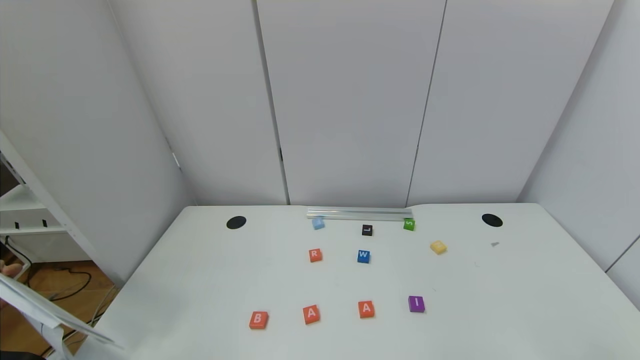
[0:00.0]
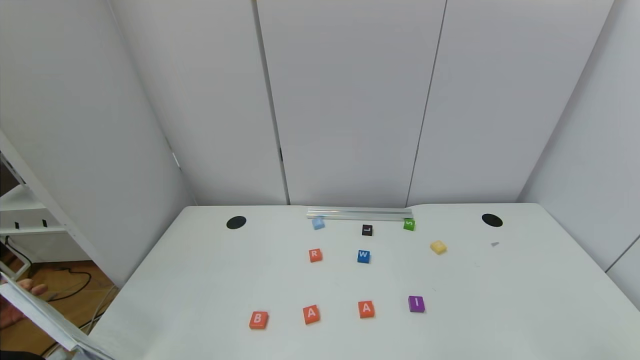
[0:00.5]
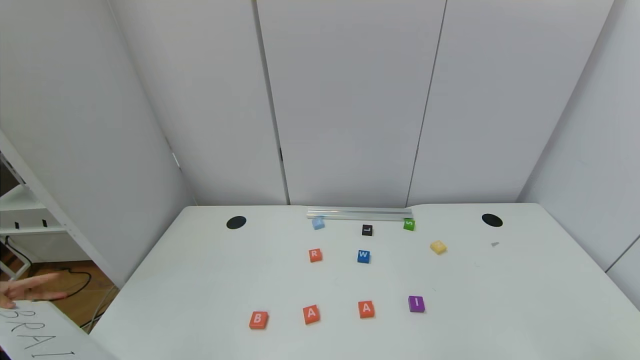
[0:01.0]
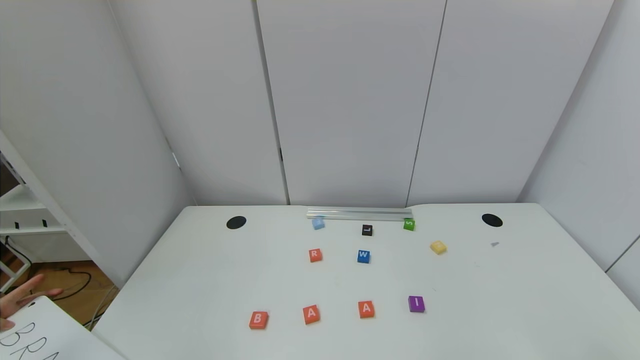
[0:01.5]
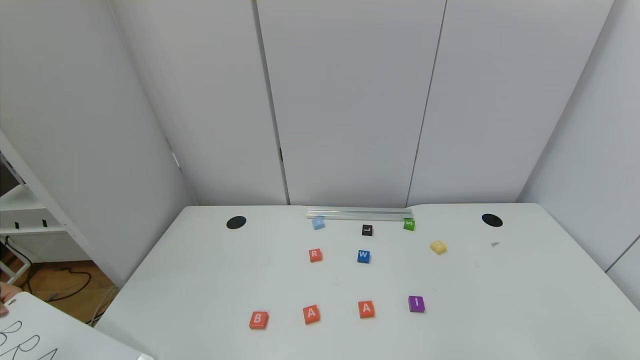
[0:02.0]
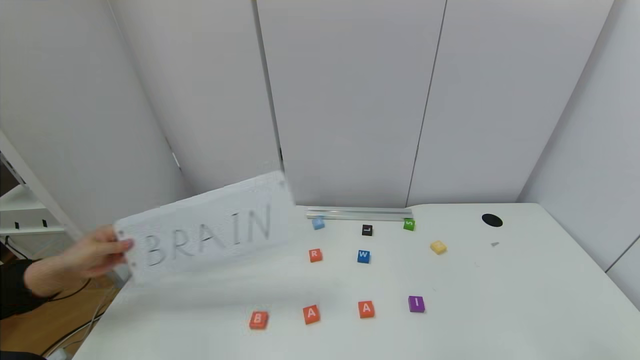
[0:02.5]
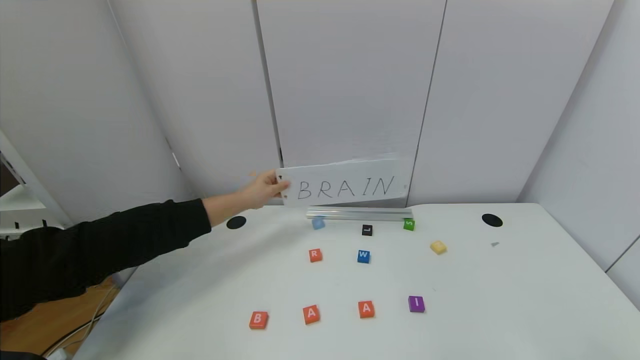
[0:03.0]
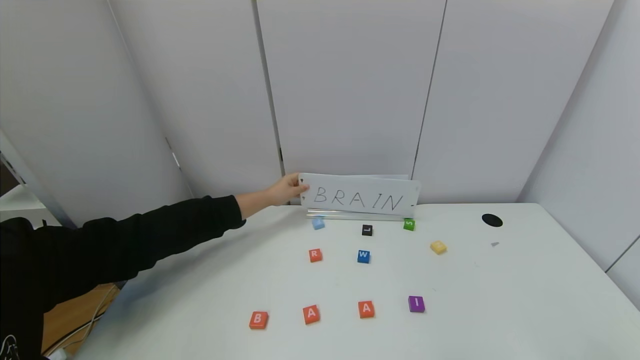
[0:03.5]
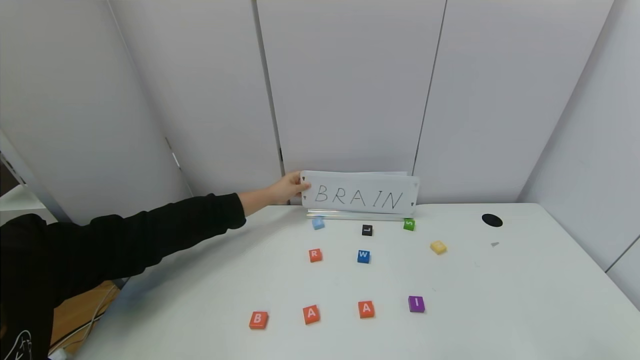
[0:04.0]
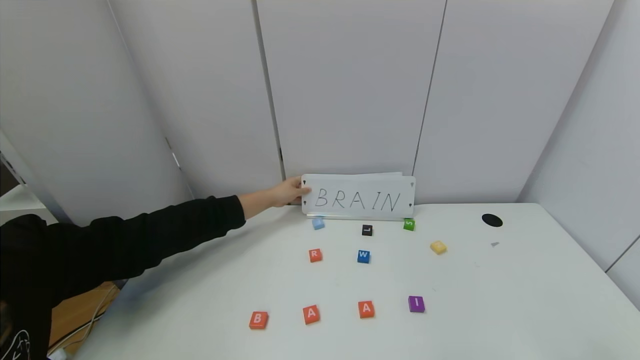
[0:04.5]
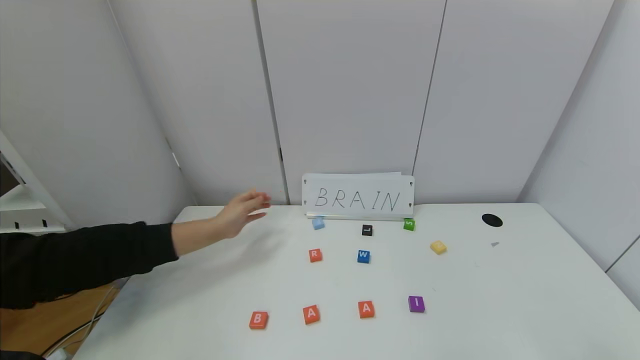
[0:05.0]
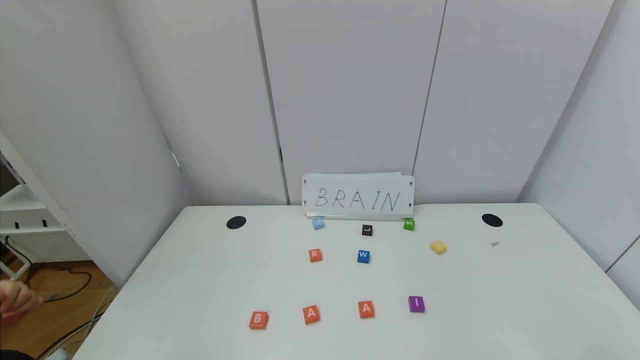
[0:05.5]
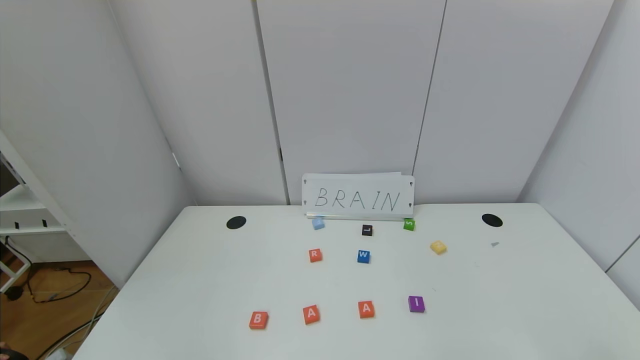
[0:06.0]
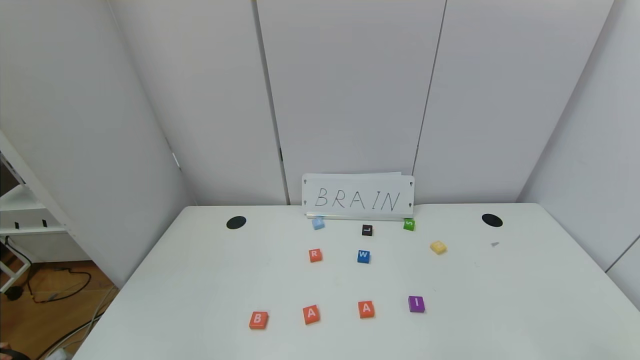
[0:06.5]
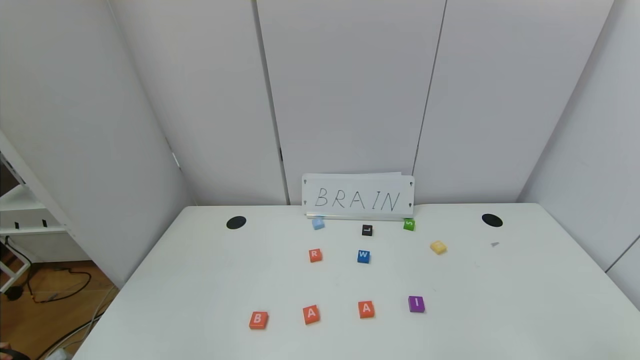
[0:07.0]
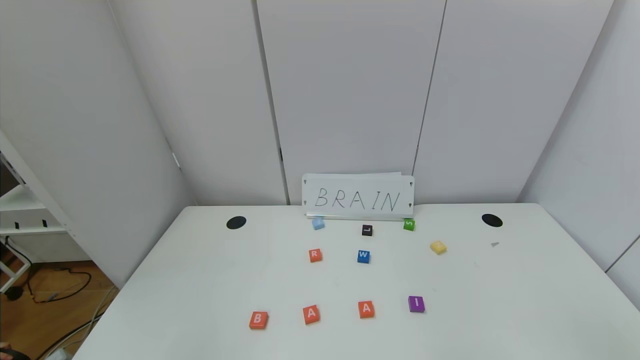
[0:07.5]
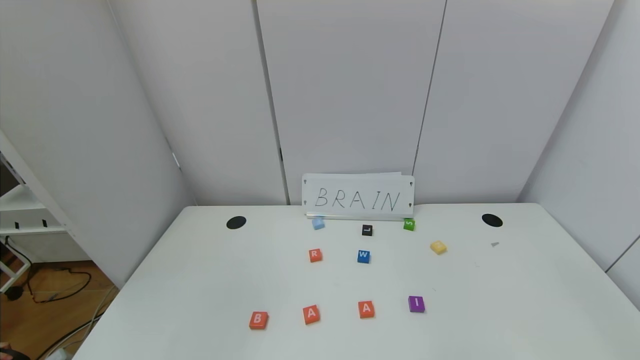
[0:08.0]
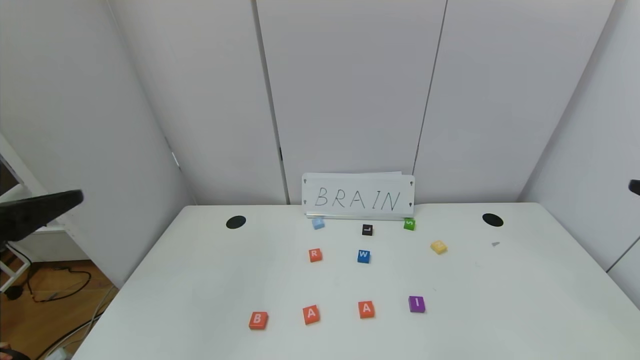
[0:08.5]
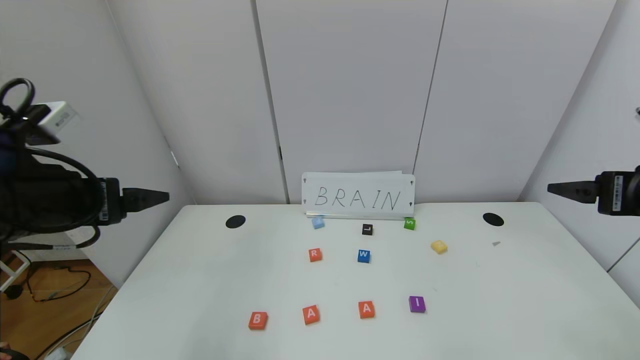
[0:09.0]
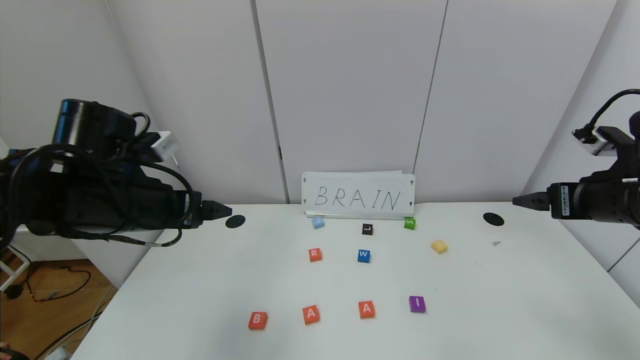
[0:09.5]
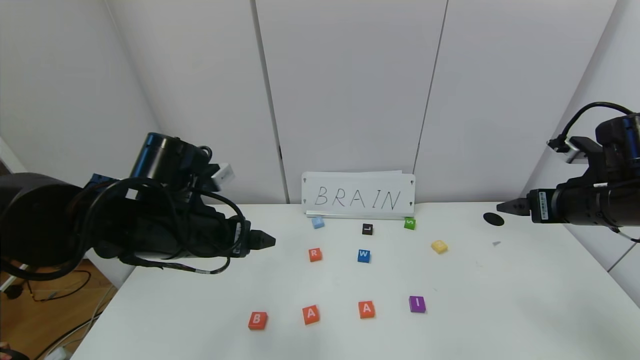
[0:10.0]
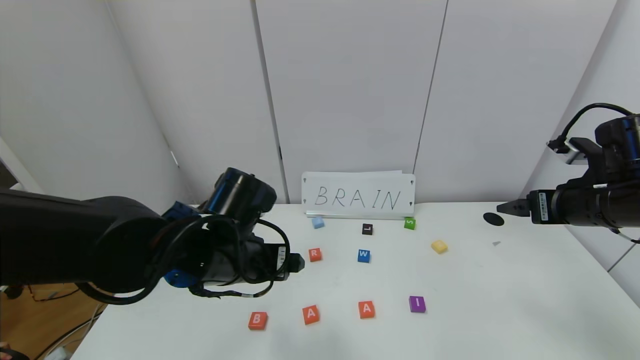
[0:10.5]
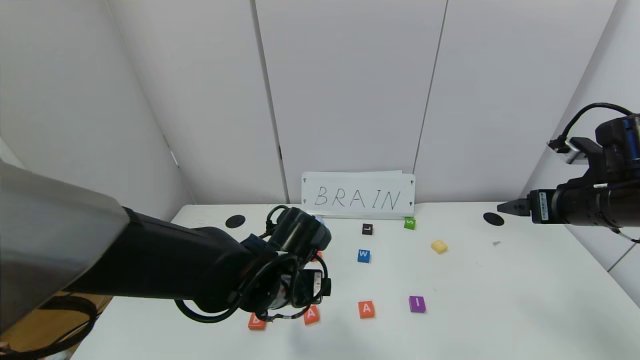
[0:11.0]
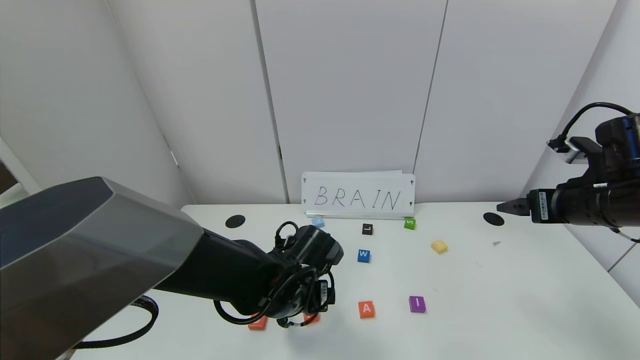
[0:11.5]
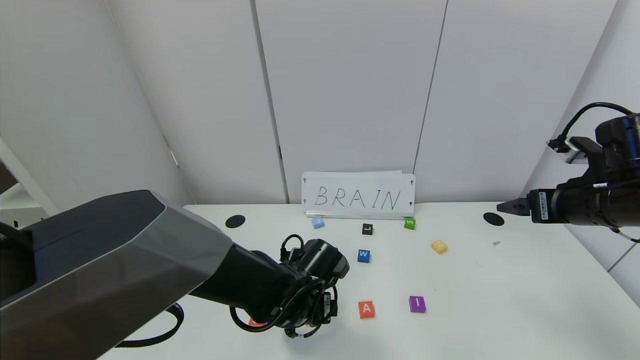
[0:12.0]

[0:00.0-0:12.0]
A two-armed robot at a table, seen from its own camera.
Task of the whole recording: use the gripper to find blocks with the letters b, a, a, and i on the table and arrange them into BAAI, then find r and N and turn the arranged baai into brian.
0:00.0 to 0:06.0: Both grippers stay put.
0:08.0 to 0:10.0: The right gripper moves forward, approximately 30 cm; the left gripper moves forward and to the right, roughly 30 cm.
0:10.0 to 0:12.0: The left gripper moves downward and to the right, approximately 20 cm.

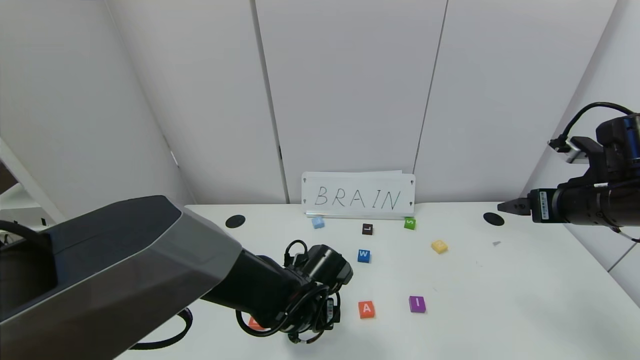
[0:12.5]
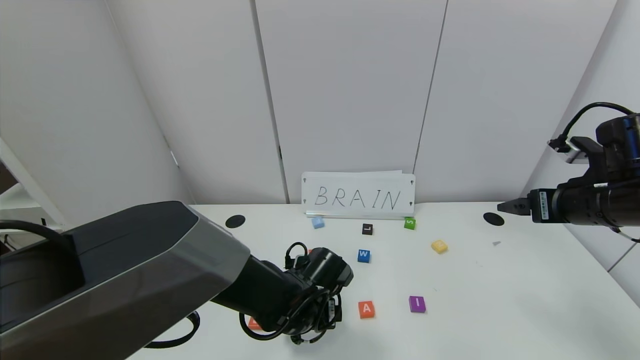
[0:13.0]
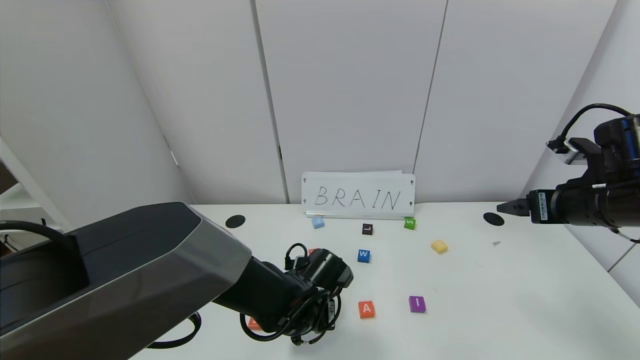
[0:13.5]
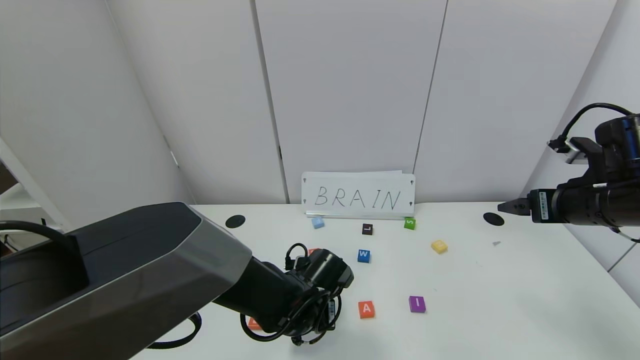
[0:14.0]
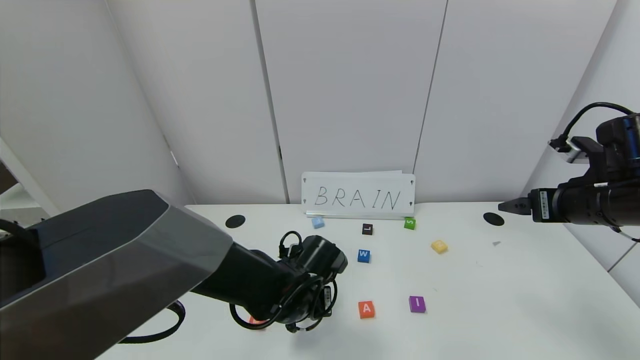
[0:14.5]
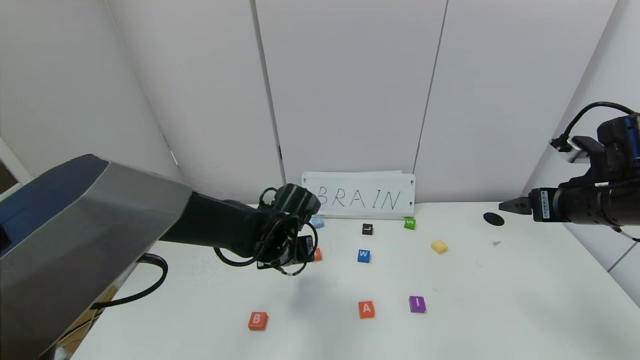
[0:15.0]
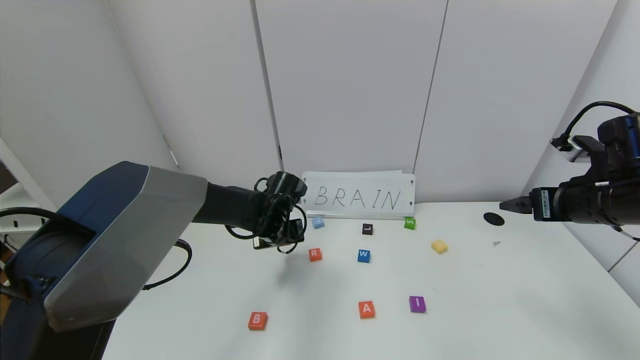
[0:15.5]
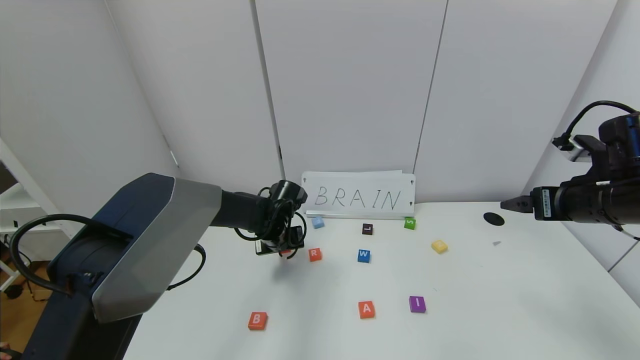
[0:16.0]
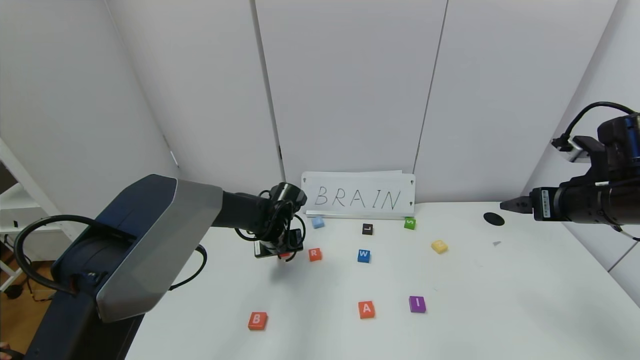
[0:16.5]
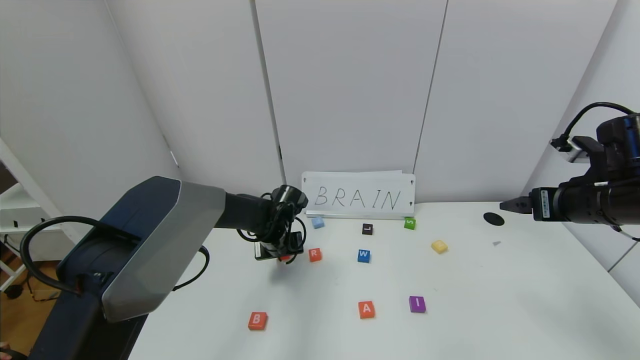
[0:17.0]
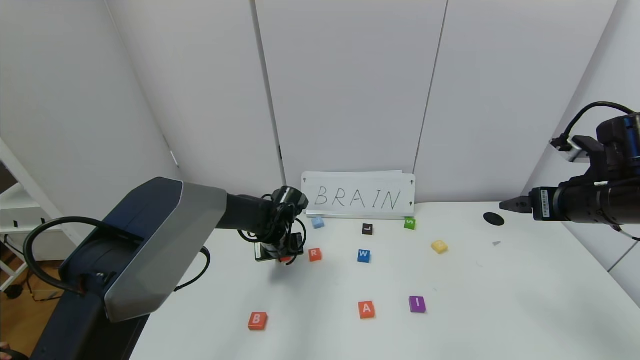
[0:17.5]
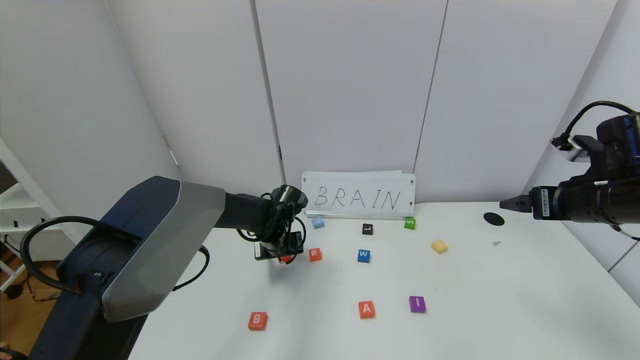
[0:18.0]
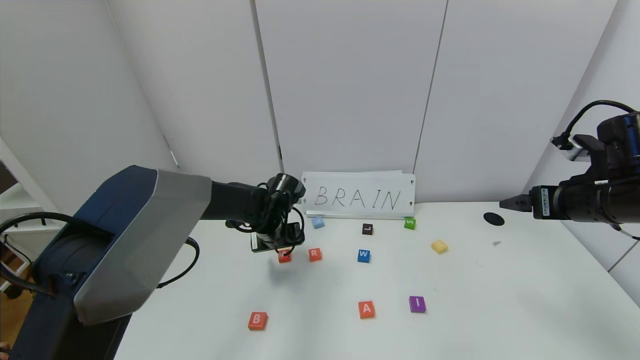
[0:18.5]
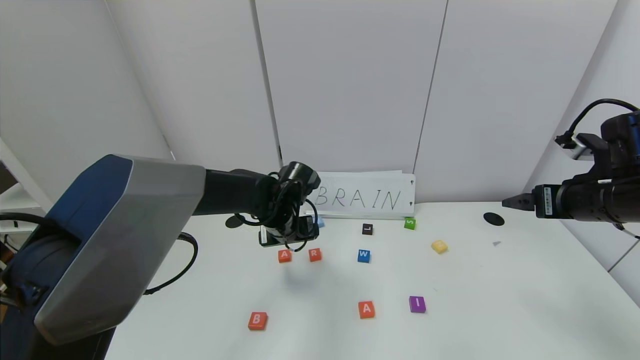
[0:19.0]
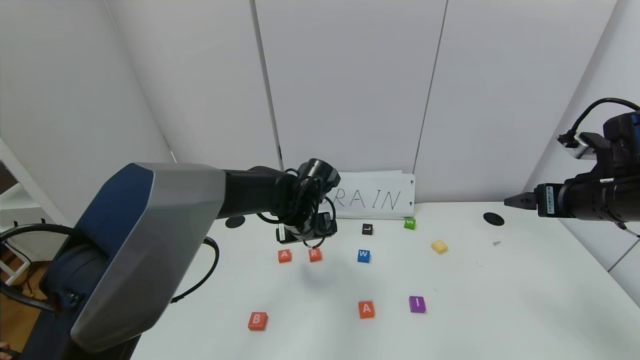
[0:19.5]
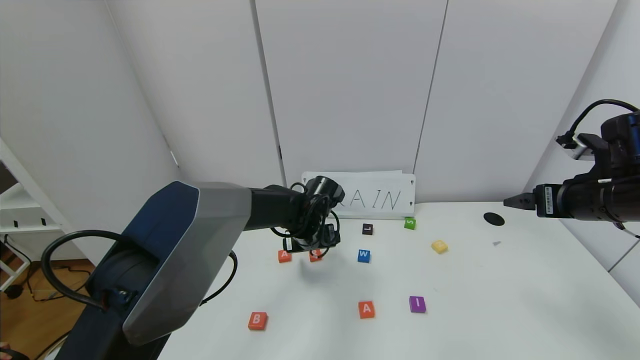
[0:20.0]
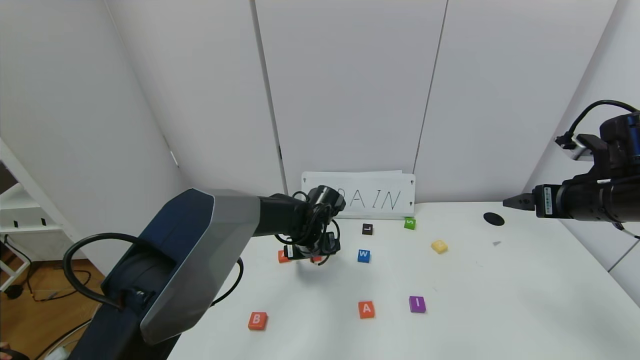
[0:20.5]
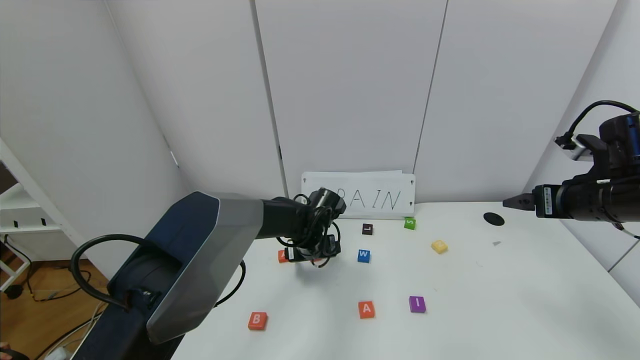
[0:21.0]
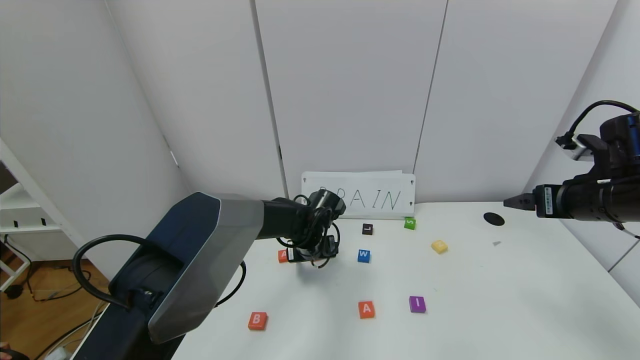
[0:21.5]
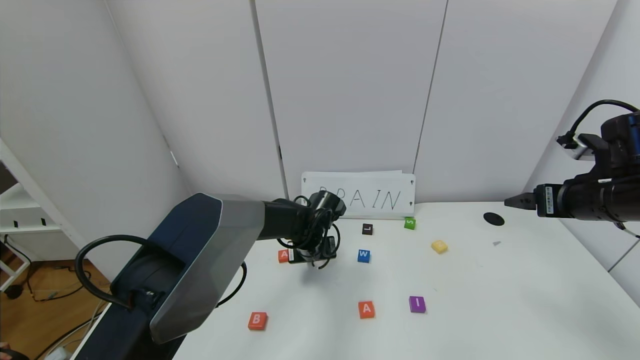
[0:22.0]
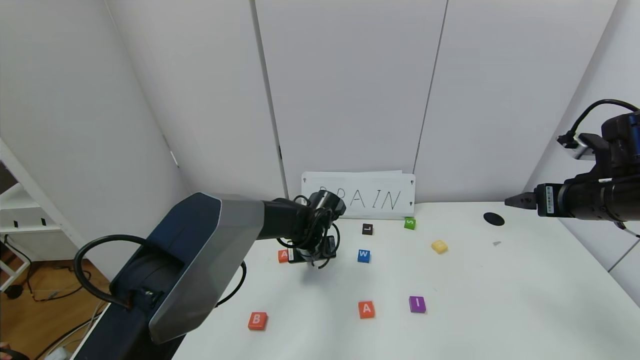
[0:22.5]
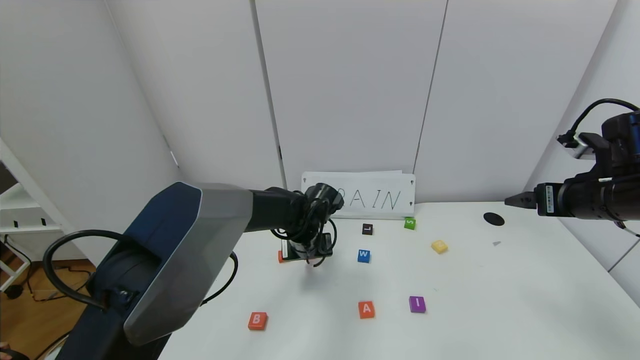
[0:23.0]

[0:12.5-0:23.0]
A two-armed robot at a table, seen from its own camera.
Task of the whole recording: use the gripper to find blocks with the letters b, a, a, and i on the table and arrange them into BAAI, then find r and N and turn the arranged baai into brian.
Step, 0:12.5 to 0:18.0: Move the block A out of the second location.
0:12.5 to 0:14.5: The left gripper closes.
0:14.5 to 0:16.5: The left gripper is displaced forward and to the left by about 15 cm.
0:16.5 to 0:19.0: The left gripper travels upward by some 5 cm, and opens its fingers.
0:19.0 to 0:21.0: The left gripper is displaced downward by some 5 cm.
0:21.0 to 0:23.0: The left gripper closes its fingers.
